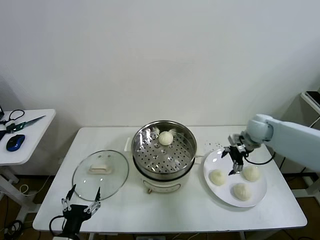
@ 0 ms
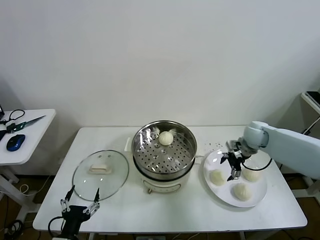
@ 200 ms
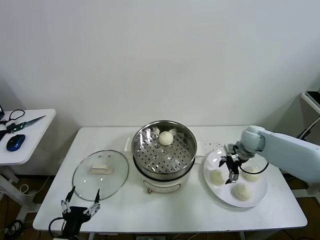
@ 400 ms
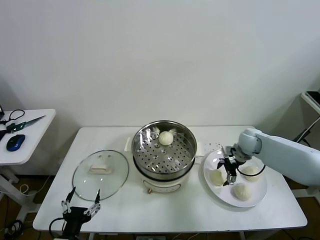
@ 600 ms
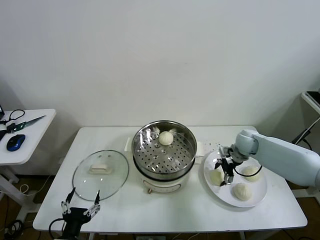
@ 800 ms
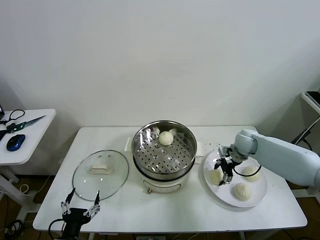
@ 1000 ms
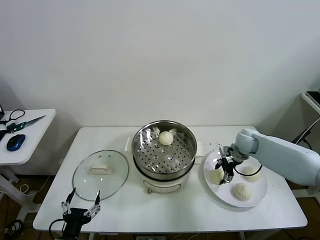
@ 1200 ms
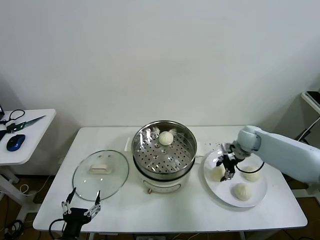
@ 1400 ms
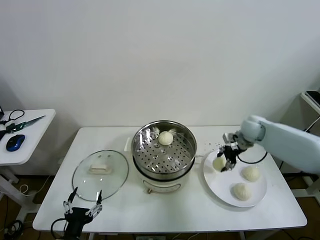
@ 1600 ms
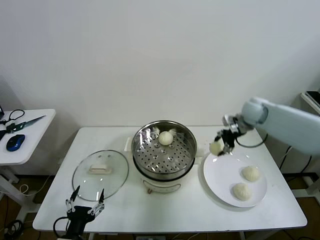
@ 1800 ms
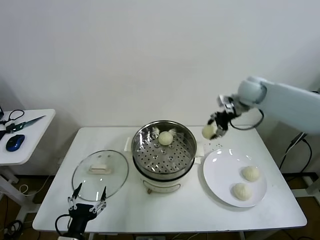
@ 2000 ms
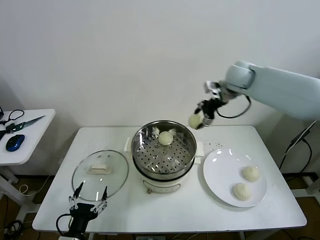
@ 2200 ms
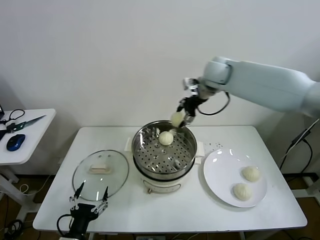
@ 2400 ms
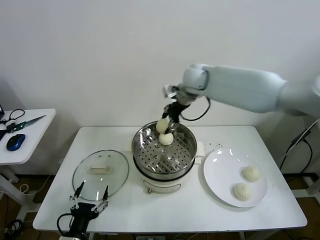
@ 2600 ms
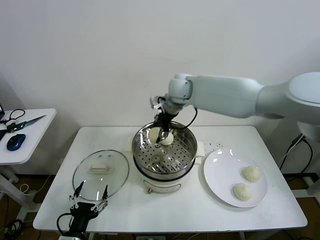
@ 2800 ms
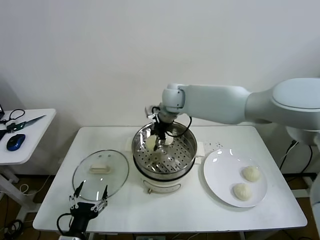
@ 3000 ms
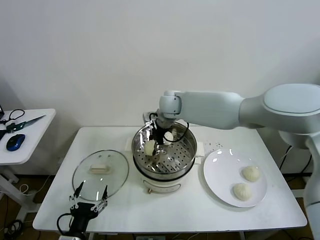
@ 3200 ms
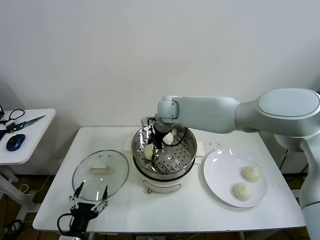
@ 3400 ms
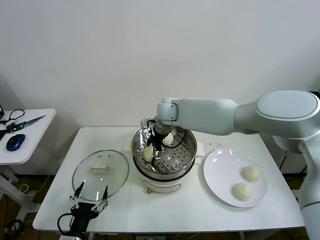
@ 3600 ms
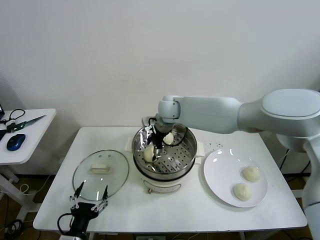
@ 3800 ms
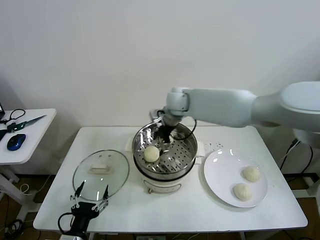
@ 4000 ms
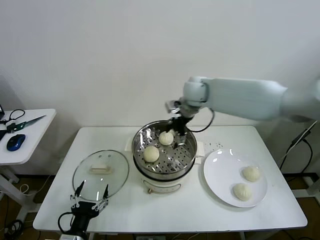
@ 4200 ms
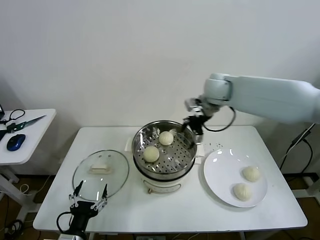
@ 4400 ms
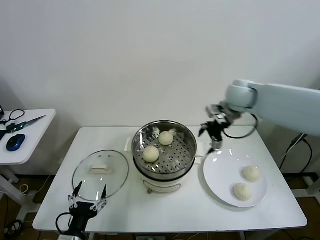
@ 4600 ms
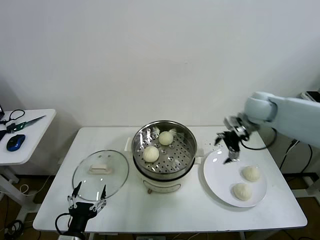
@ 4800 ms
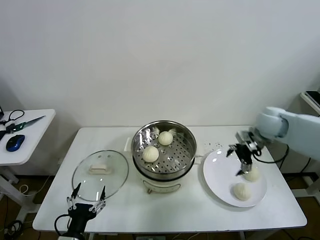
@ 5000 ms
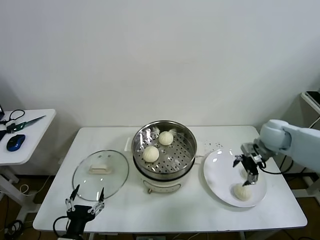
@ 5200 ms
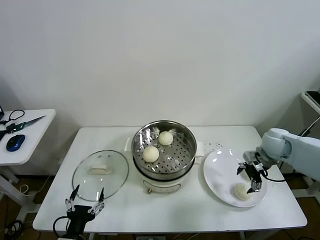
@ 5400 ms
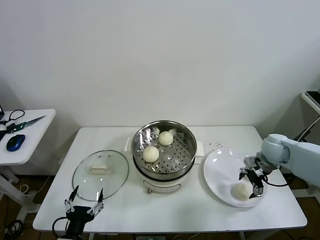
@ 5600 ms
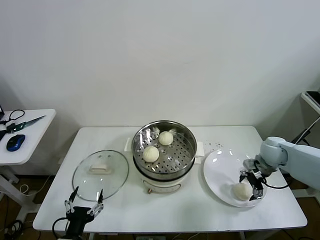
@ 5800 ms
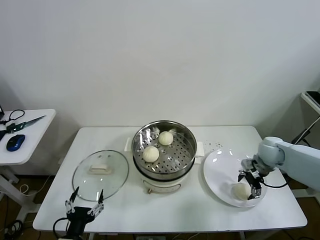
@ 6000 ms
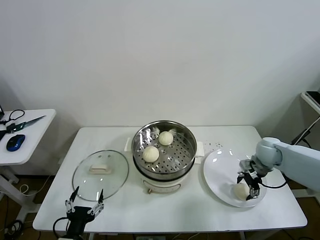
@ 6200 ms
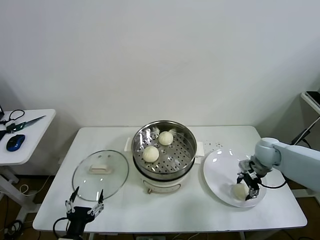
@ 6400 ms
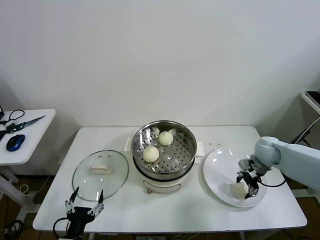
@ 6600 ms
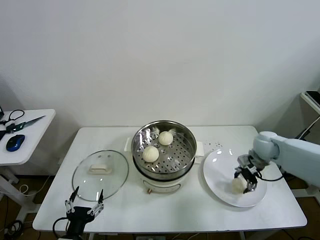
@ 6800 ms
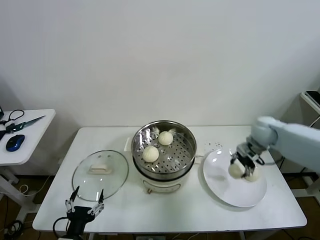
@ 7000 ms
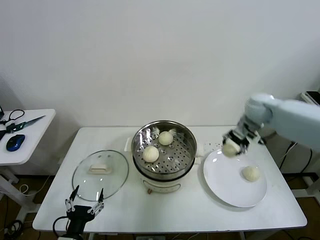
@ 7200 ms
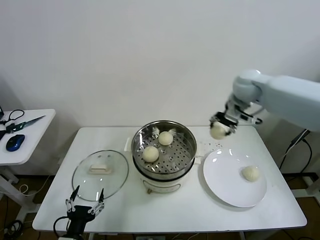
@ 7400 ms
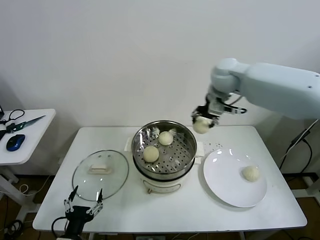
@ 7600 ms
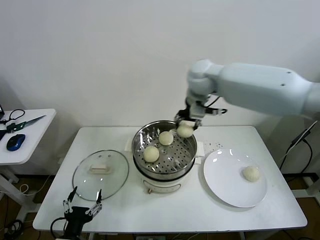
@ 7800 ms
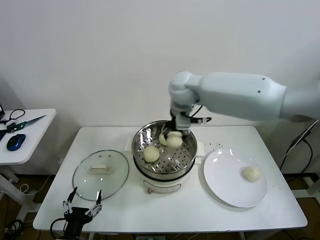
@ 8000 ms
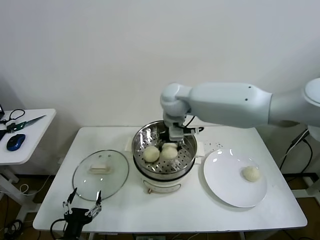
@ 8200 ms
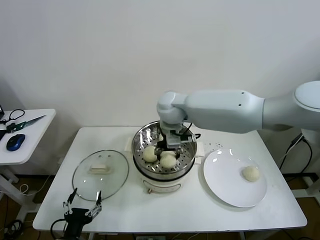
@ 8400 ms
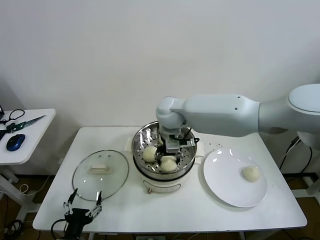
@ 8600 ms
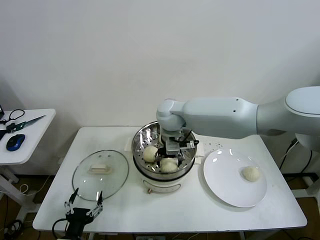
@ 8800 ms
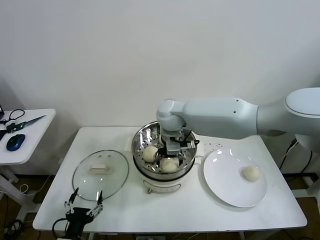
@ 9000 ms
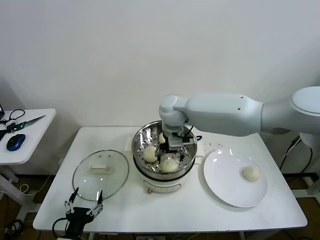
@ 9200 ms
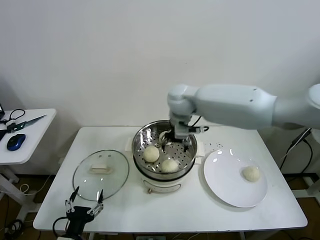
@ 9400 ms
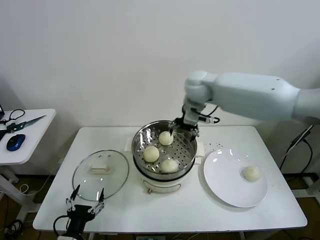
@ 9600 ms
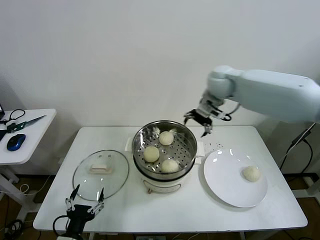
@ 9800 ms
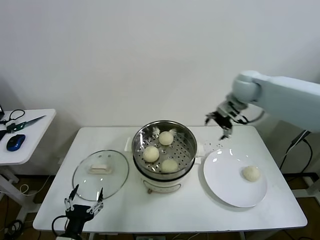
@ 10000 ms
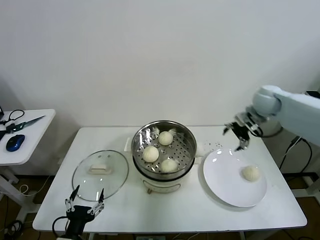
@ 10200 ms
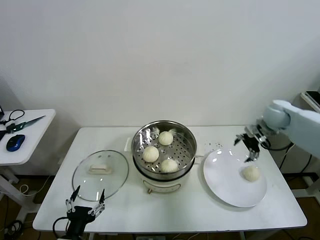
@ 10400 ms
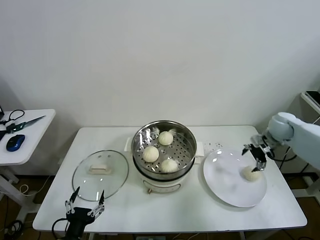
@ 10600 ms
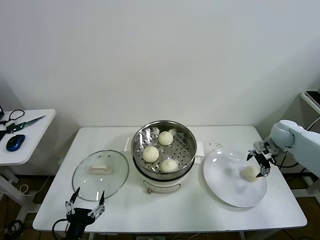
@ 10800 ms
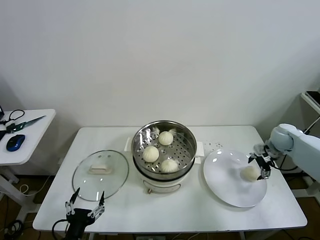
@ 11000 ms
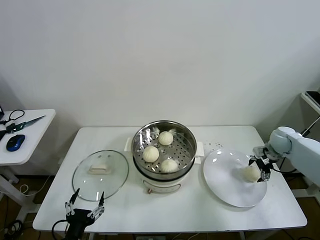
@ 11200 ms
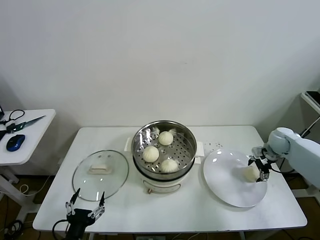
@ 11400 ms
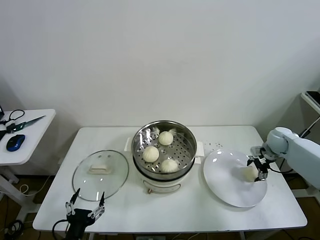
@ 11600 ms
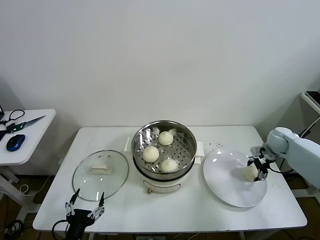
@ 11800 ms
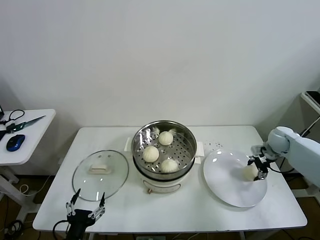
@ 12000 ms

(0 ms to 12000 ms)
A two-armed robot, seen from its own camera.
Task of the whole recording: take steamed baozi put them in steamer then cover it.
Step, 1400 ms - 3600 ms: Place the baozi on the steamer with right gripper.
Step, 3800 ms - 6600 ms: Grasp the baozi in the plate with right gripper.
Step, 6800 ms - 9000 ms: Place the baozi on the steamer with right gripper.
Step, 9200 ms - 11800 ms: Grasp the baozi in the plate with right gripper.
0 ms - 1600 ms: The right gripper goes downward and returns, about 5 cm each way, and closes up.
1600 ms - 3000 ms: The right gripper is displaced to the left by about 30 cm.
3000 ms - 4400 ms: The right gripper moves to the right, about 15 cm, and opens.
4400 ms - 6000 ms: The right gripper shifts approximately 30 cm downward and to the right.
6000 ms - 7600 ms: The right gripper travels upward and to the left by about 35 cm, and closes its fingers.
7600 ms - 9000 ms: The right gripper travels to the left and downward by roughly 20 cm, and opens.
9000 ms - 10400 ms: The right gripper goes roughly 40 cm to the right.
10400 ms - 12000 ms: The right gripper moves downward and to the right, roughly 10 cm, and closes its fingers.

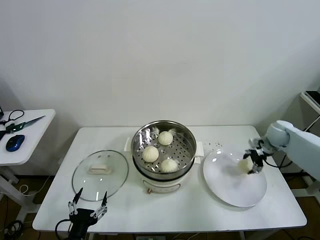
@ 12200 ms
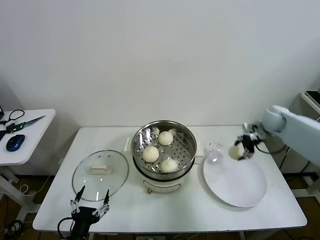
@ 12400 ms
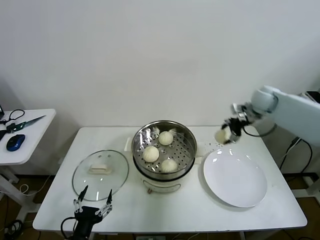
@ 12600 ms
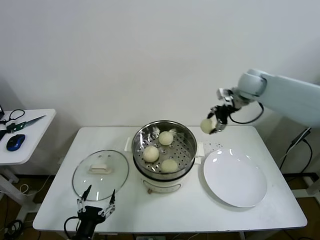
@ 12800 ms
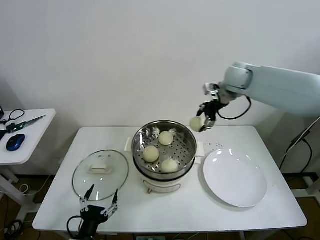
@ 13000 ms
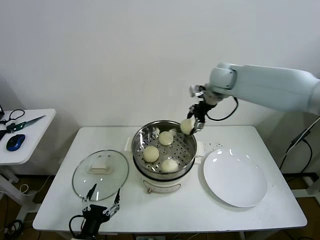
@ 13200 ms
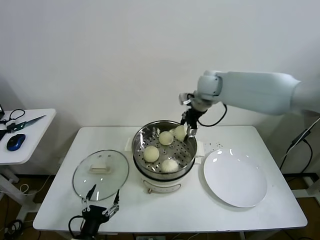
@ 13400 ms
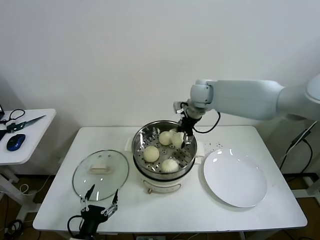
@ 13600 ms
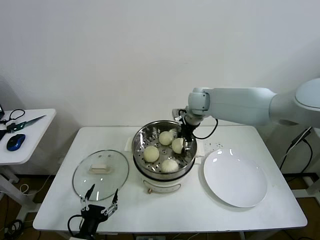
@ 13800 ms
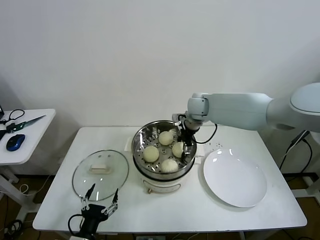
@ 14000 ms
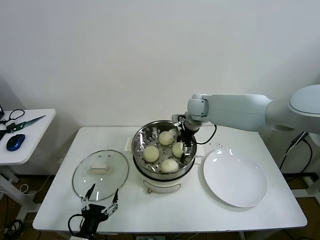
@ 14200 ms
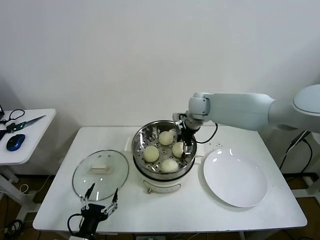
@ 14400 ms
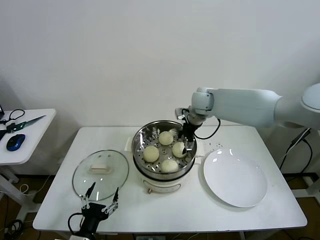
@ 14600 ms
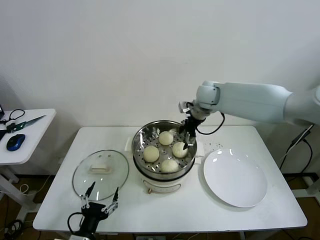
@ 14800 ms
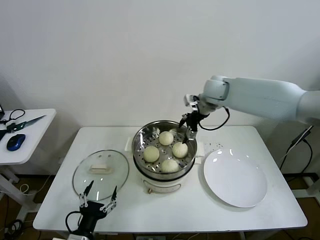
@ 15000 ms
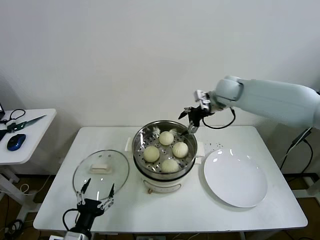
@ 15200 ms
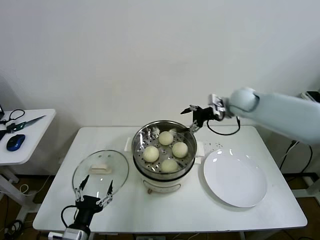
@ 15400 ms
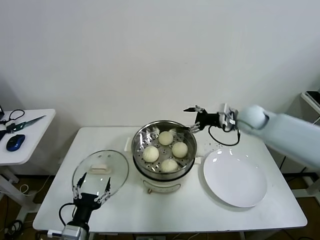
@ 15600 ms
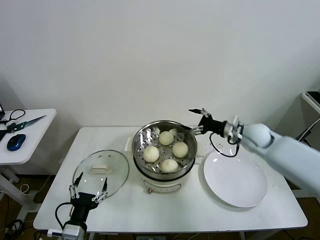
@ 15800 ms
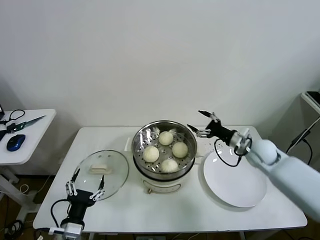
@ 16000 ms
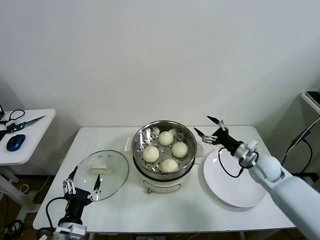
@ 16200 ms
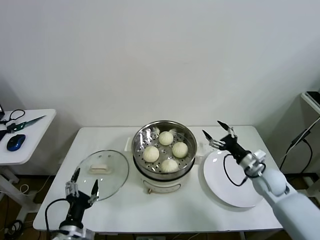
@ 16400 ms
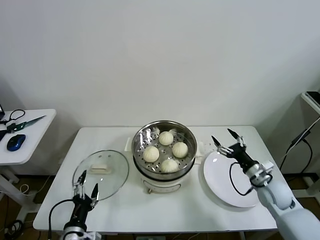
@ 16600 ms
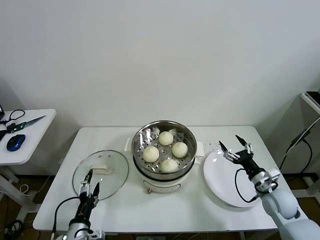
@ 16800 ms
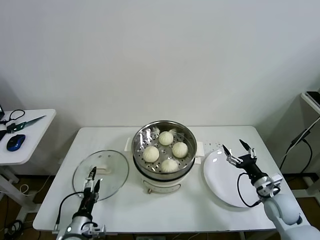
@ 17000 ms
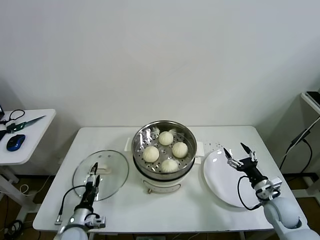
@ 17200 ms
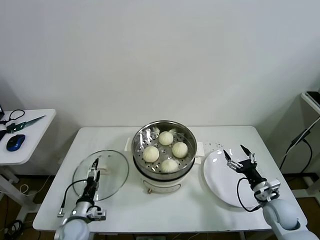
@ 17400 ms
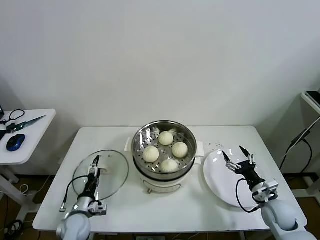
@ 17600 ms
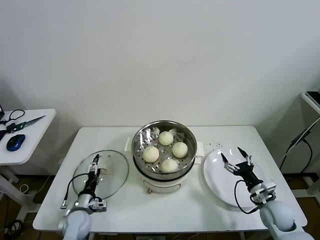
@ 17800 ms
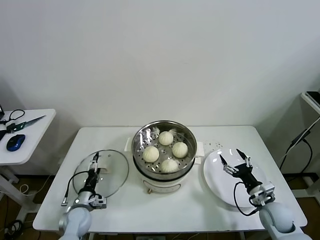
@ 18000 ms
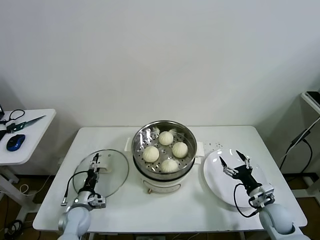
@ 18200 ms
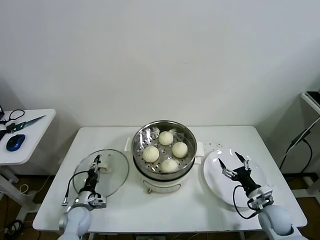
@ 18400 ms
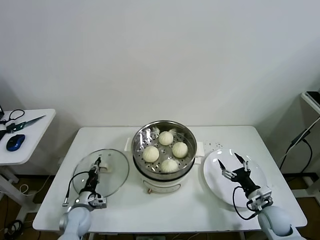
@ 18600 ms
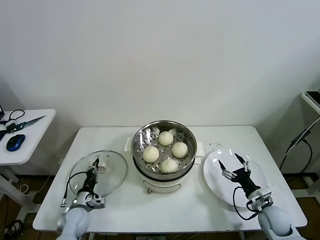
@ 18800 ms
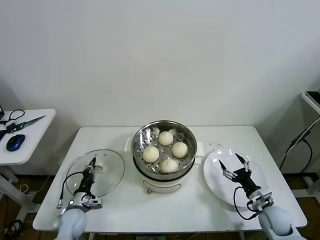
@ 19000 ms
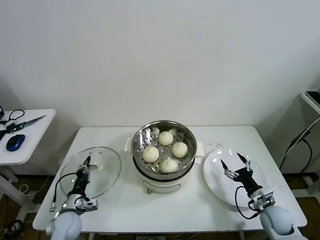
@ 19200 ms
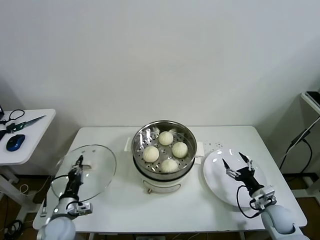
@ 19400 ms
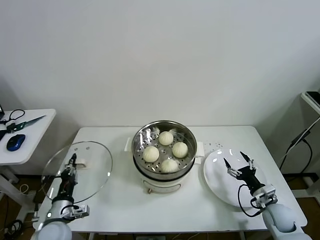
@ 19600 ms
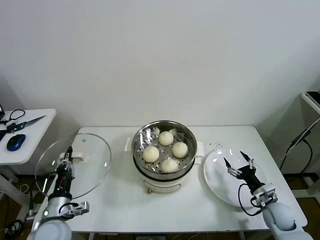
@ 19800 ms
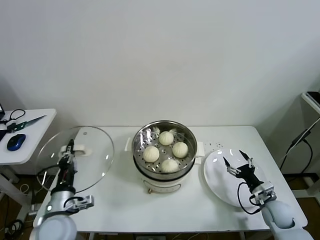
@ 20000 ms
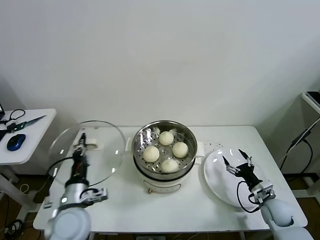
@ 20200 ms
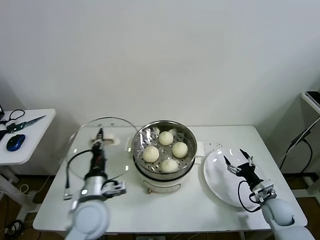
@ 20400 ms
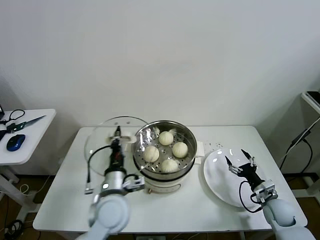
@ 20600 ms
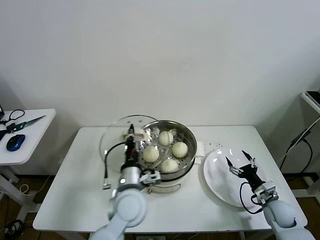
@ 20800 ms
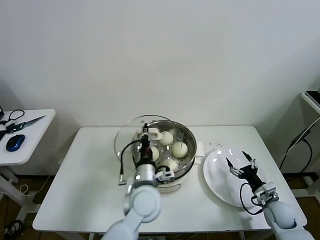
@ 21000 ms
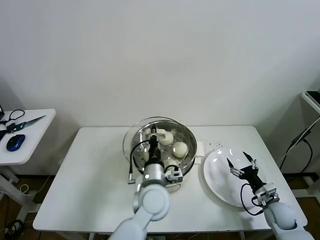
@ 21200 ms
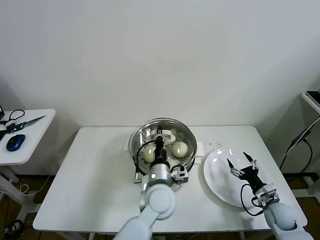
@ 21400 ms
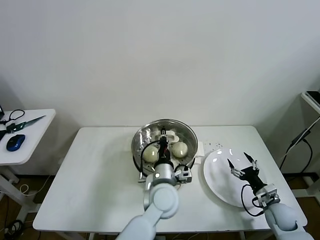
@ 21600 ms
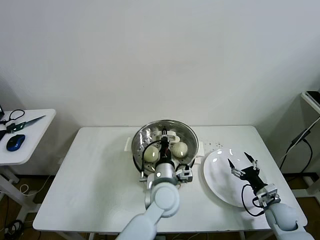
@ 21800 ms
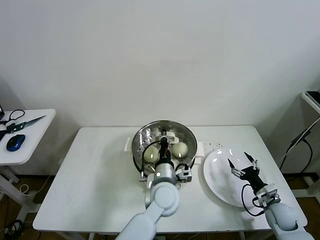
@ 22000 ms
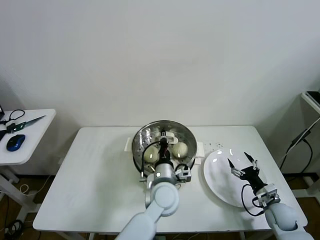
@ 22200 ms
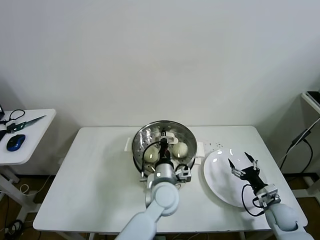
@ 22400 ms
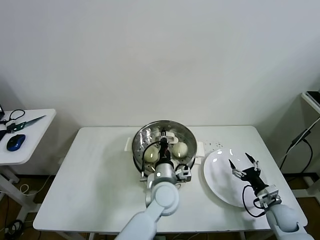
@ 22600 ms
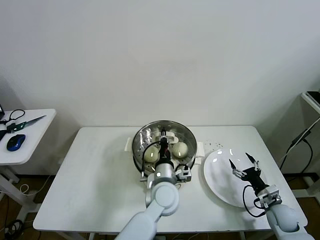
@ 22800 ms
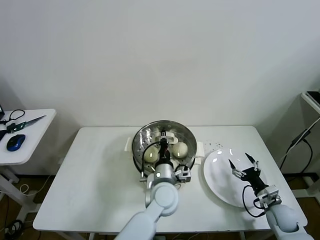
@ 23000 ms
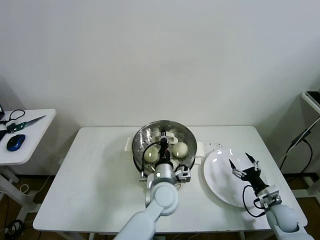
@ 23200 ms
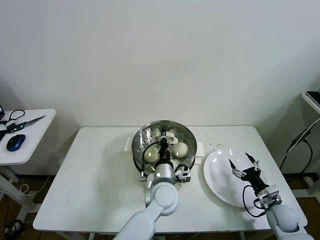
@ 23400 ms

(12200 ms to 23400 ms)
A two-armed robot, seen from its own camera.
Task of the whole recording: take steamed baozi put them in steamer then cover it.
Step, 12200 ms - 14600 ms: Place the baozi on the steamer with right gripper.
Step, 14800 ms - 18600 ms: Grasp the pot lid with left gripper.
12200 ms - 13800 ms: The right gripper goes approximately 30 cm to the left.
13800 ms - 15400 ms: The right gripper shifts some 15 cm to the right, and opens its fingers.
15400 ms - 17000 ms: The right gripper moves downward, backward and to the right, about 35 cm. Meanwhile the left gripper shifts roughly 10 cm downward and forward.
17000 ms - 18600 ms: The right gripper travels downward by about 5 cm. Meanwhile the left gripper moves forward and downward, roughly 15 cm, and closes.
18600 ms - 20200 ms: The left gripper shifts some 20 cm upward.
20200 ms - 21800 ms: The left gripper travels to the right by roughly 25 cm.
21800 ms - 23400 ms: There are only small adjustments of the grippers.
